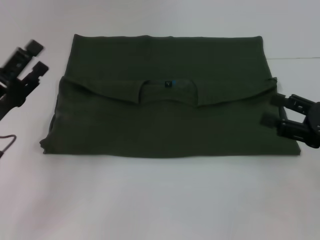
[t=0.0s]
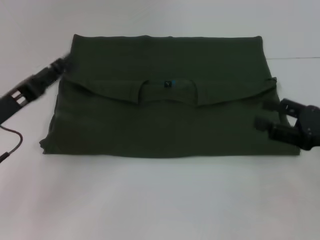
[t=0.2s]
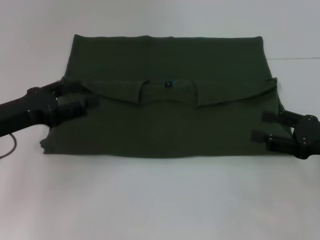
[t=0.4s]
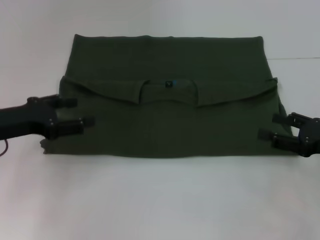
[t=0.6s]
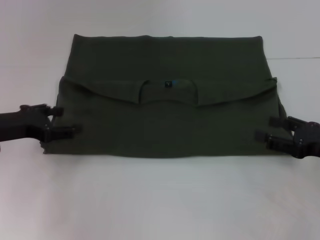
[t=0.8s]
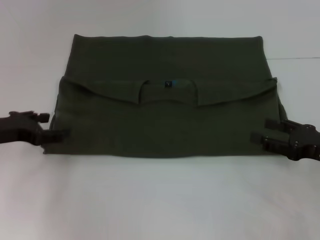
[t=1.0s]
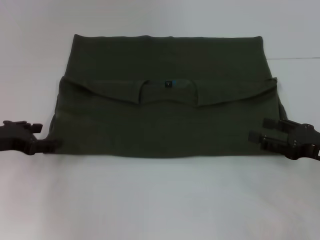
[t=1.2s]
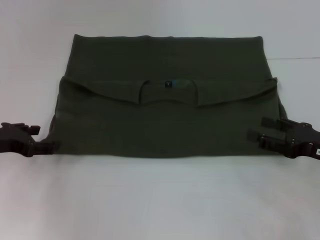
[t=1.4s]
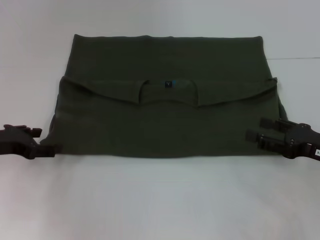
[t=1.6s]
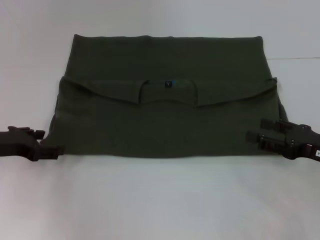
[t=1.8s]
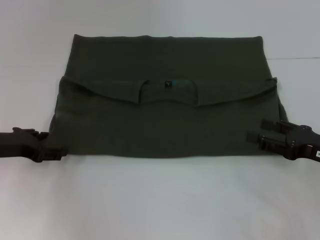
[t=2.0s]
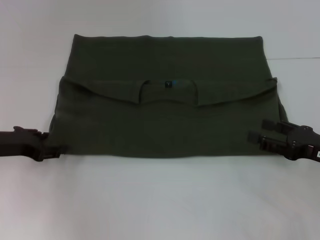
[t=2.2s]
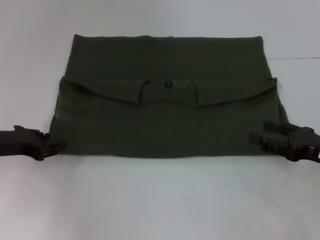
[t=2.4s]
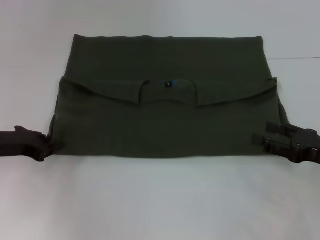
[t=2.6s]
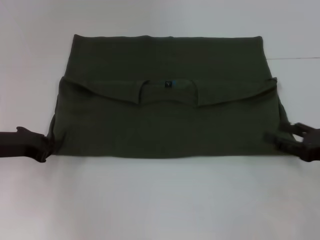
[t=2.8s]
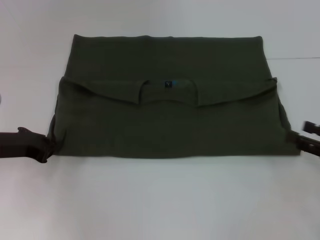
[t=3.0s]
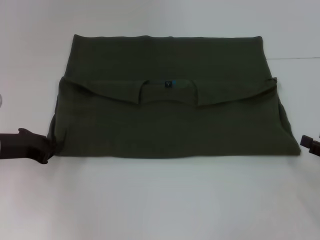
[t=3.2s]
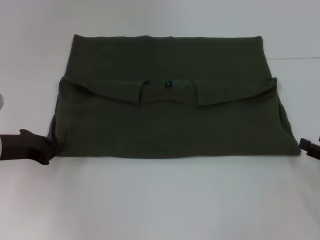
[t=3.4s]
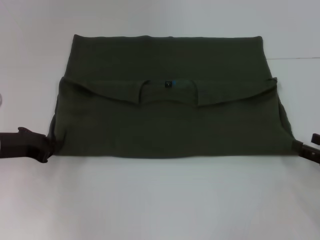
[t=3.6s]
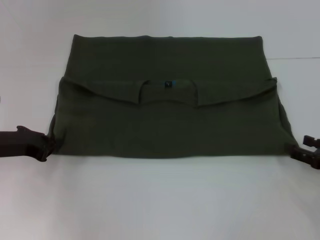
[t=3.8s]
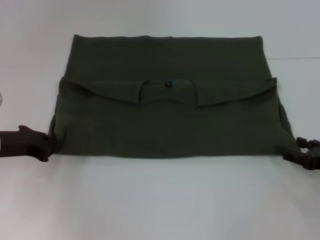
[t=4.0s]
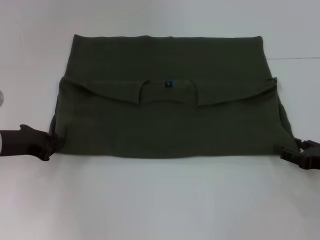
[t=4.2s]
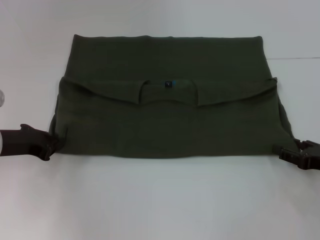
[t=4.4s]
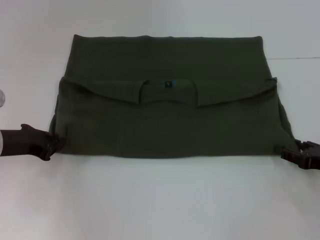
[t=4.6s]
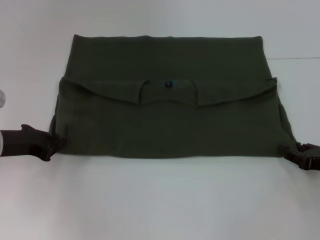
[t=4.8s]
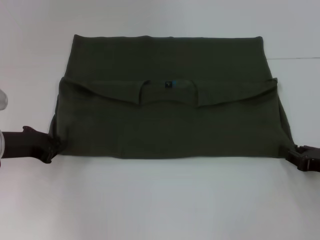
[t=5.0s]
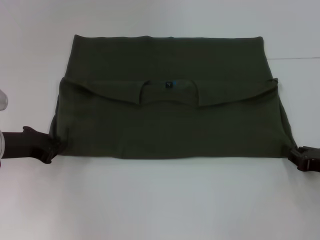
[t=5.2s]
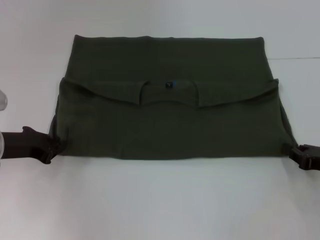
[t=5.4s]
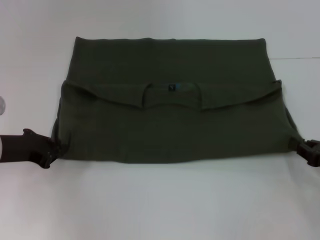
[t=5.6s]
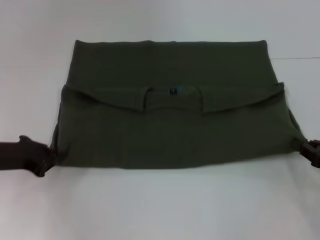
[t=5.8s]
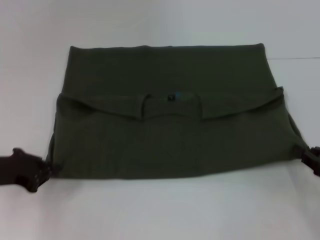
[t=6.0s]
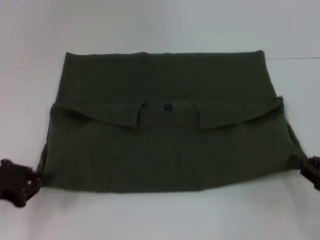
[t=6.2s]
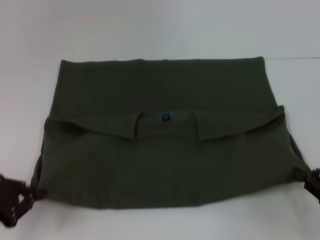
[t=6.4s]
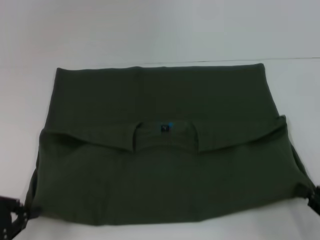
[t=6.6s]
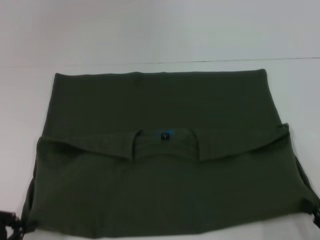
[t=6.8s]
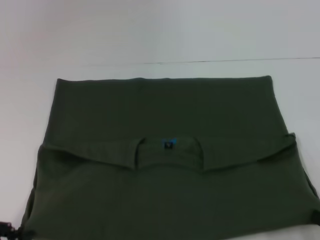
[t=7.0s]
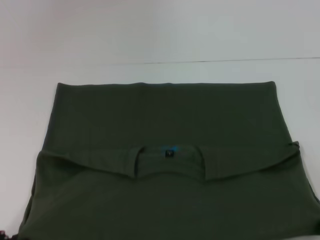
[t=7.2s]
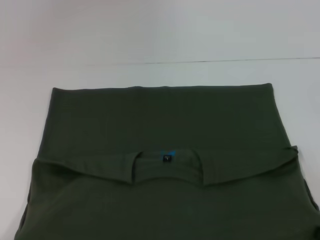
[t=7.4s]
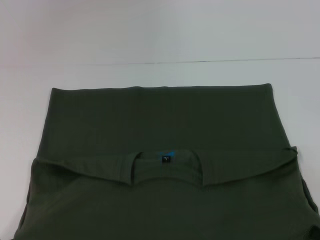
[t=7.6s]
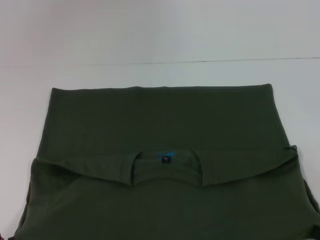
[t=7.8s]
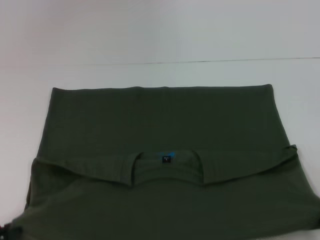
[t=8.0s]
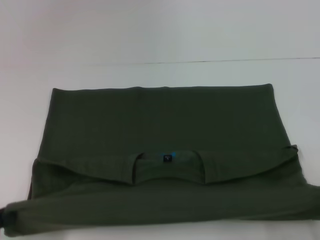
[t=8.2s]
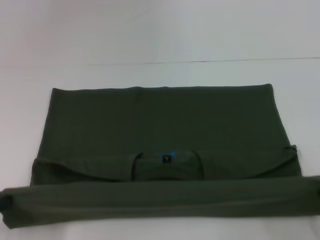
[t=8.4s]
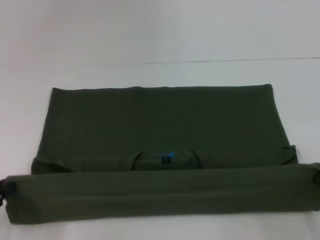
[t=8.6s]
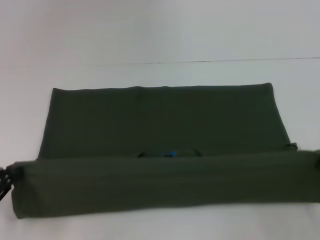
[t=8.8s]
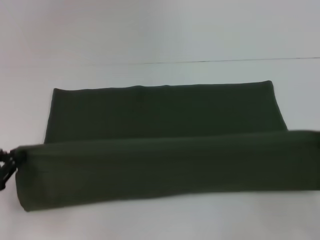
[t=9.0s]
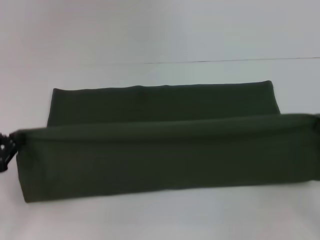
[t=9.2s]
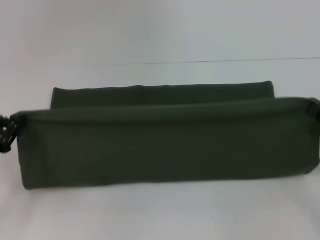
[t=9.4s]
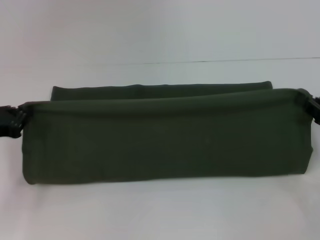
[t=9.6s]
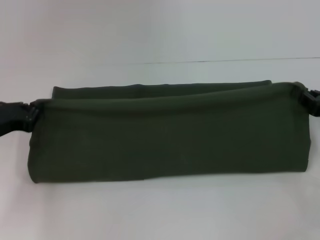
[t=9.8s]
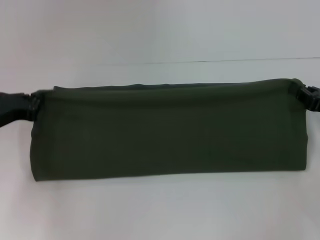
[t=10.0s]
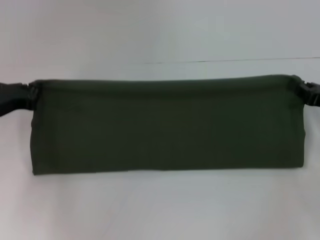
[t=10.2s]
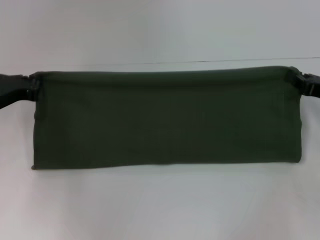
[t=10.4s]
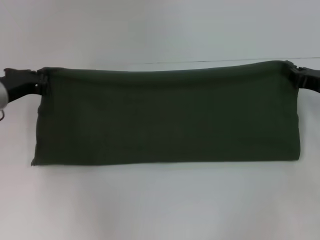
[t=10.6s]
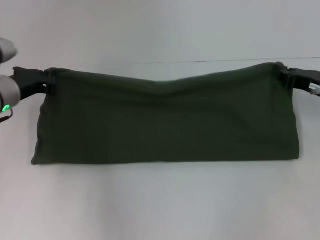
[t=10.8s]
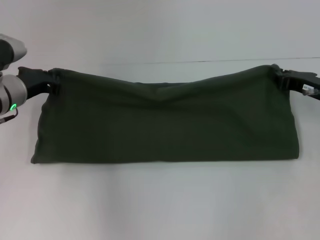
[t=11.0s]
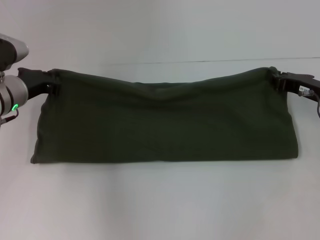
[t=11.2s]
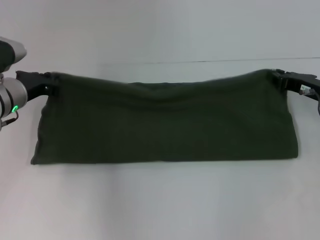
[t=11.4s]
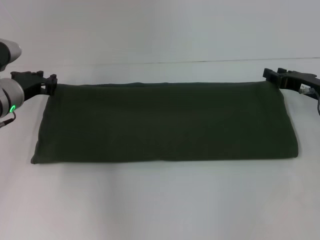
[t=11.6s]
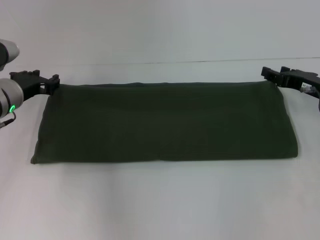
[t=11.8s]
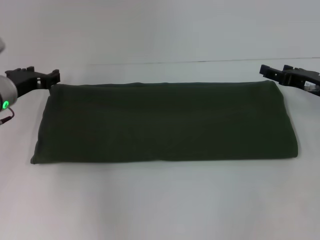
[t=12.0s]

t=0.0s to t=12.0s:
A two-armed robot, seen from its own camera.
Step, t=0.0s to t=7.6s: Pull the clothes with your left hand.
Step, t=0.0s to t=7.6s: Pull the clothes with your right hand.
Step, t=7.8s to t=11.4s: Fold the clothes with your left hand.
Step, t=7.8s to t=11.4s: Fold the clothes with your right hand.
t=0.0s to t=1.6s: The left gripper goes some 5 cm forward.
t=1.6s to t=3.0s: The right gripper ends up some 5 cm from where it was, while the left gripper closes up.
t=3.0s to t=4.4s: The grippers move only a little.
t=4.4s to t=6.0s: The right gripper closes.
t=6.0s to t=7.6s: Both grippers move backward, about 15 cm.
t=7.6s to t=9.0s: The grippers both shift forward by approximately 10 cm.
t=9.0s to t=10.4s: The right gripper moves forward, about 15 cm. Meanwhile the left gripper heads forward and to the right, covering roughly 15 cm.
t=10.4s to t=12.0s: The right gripper opens its fingers, while the left gripper opens its fingers.

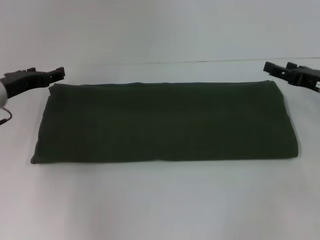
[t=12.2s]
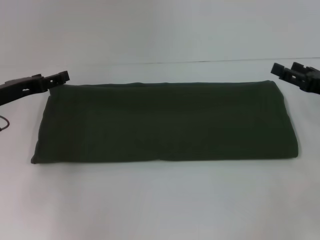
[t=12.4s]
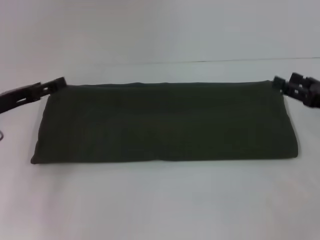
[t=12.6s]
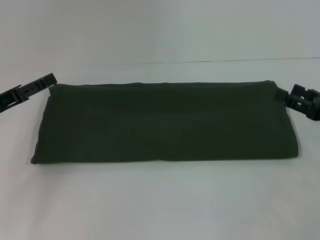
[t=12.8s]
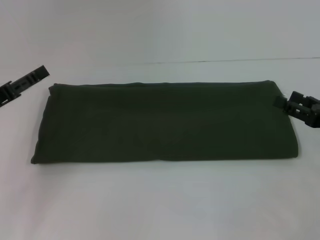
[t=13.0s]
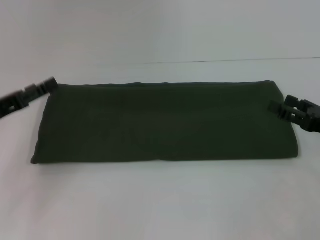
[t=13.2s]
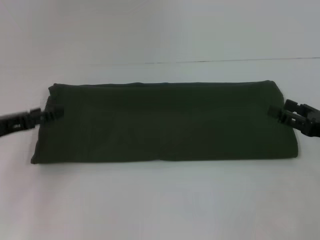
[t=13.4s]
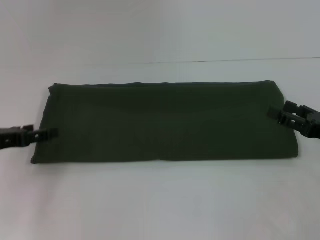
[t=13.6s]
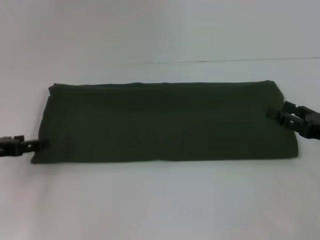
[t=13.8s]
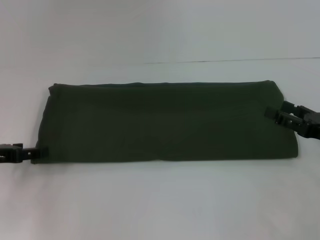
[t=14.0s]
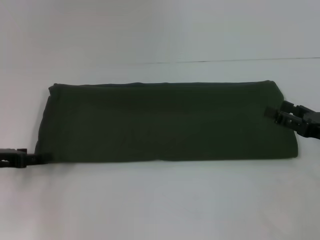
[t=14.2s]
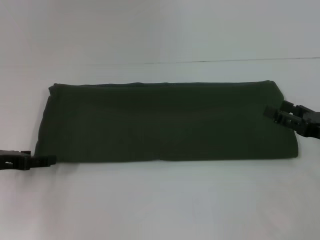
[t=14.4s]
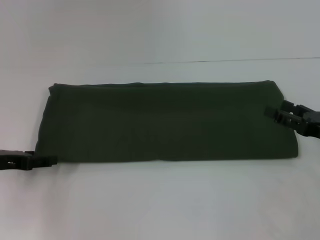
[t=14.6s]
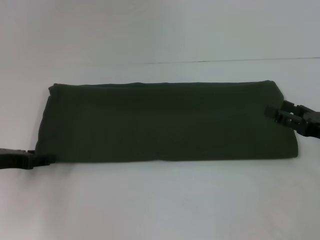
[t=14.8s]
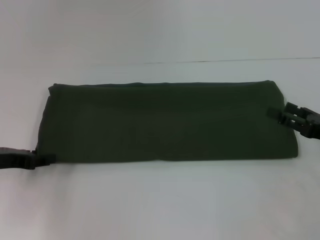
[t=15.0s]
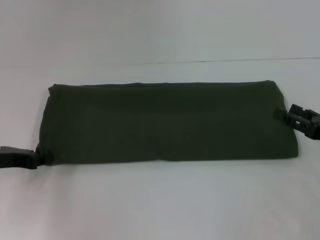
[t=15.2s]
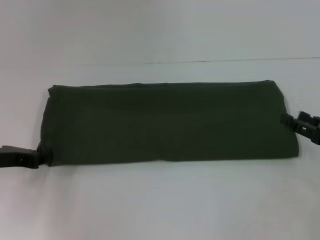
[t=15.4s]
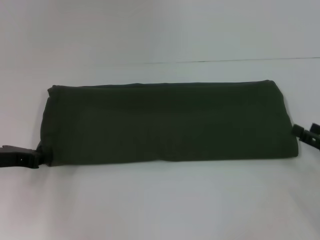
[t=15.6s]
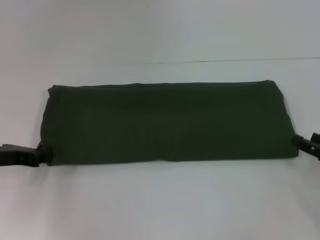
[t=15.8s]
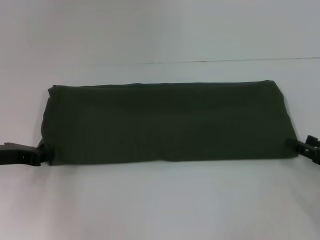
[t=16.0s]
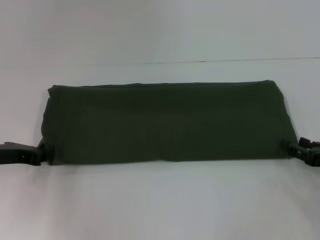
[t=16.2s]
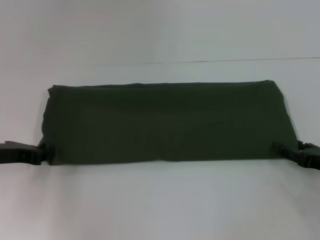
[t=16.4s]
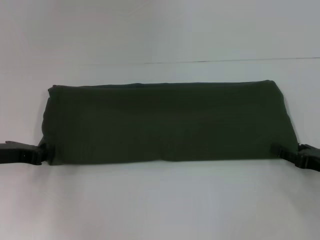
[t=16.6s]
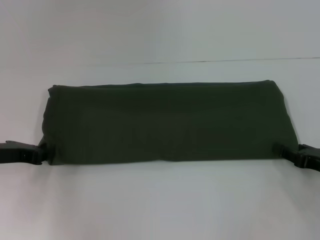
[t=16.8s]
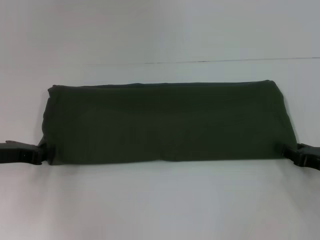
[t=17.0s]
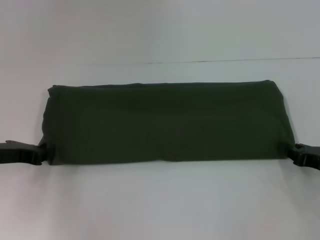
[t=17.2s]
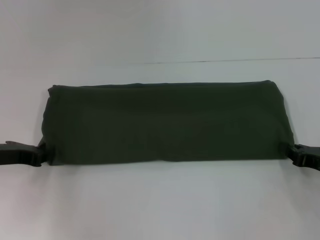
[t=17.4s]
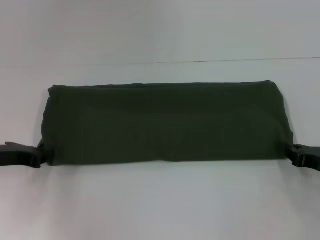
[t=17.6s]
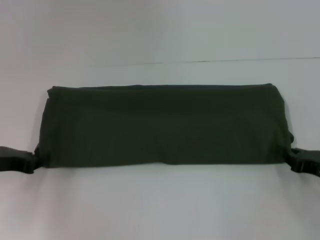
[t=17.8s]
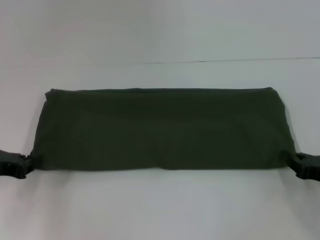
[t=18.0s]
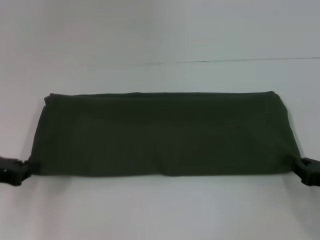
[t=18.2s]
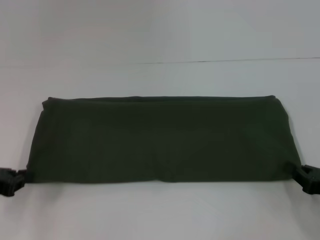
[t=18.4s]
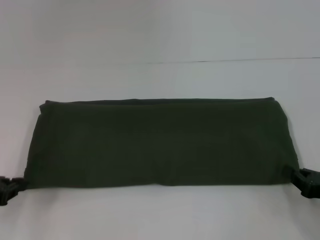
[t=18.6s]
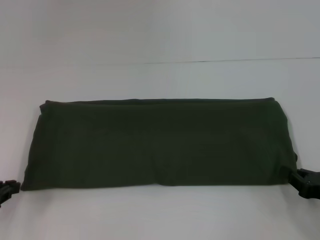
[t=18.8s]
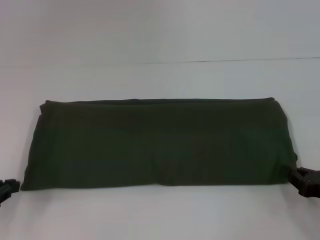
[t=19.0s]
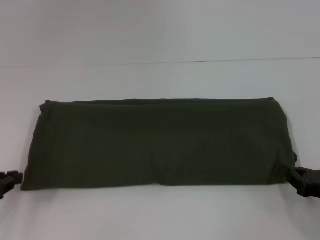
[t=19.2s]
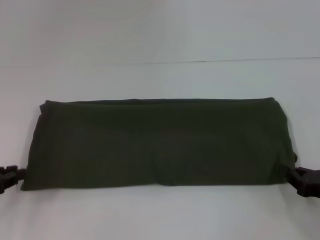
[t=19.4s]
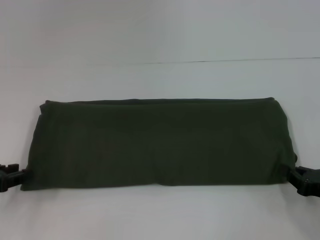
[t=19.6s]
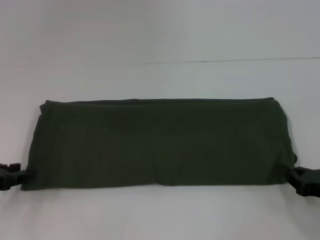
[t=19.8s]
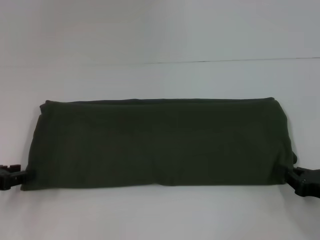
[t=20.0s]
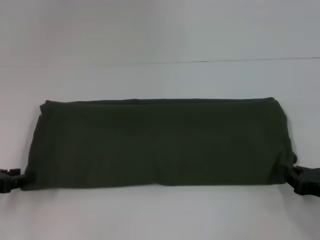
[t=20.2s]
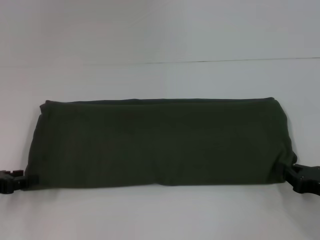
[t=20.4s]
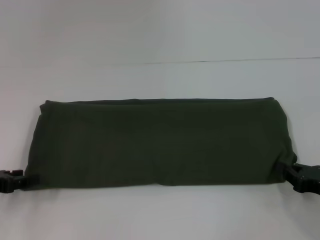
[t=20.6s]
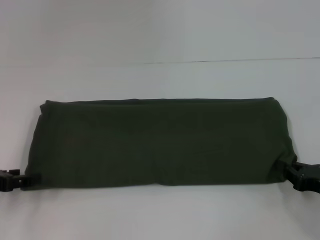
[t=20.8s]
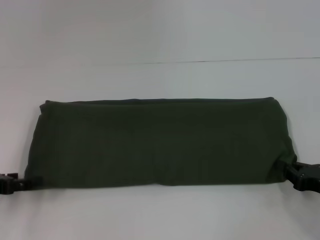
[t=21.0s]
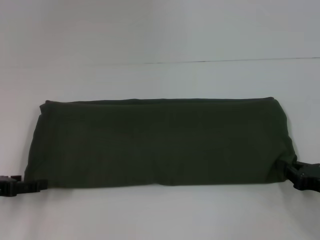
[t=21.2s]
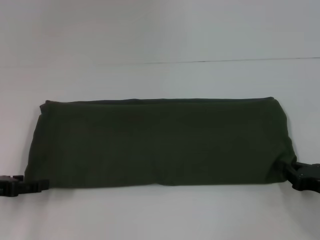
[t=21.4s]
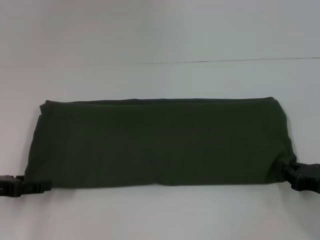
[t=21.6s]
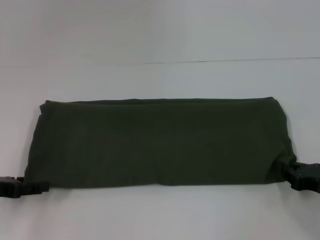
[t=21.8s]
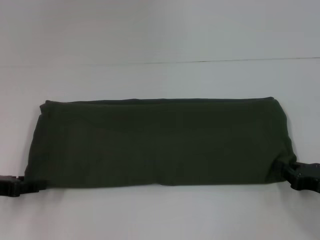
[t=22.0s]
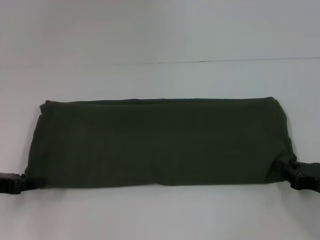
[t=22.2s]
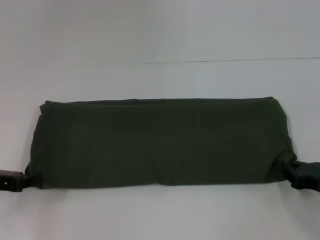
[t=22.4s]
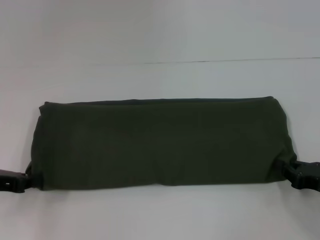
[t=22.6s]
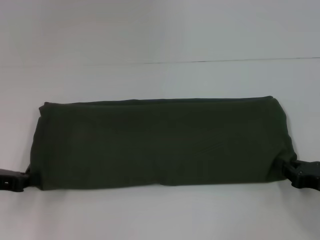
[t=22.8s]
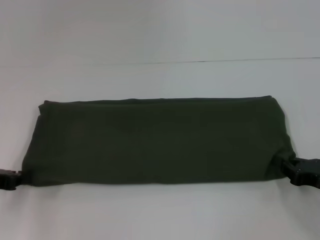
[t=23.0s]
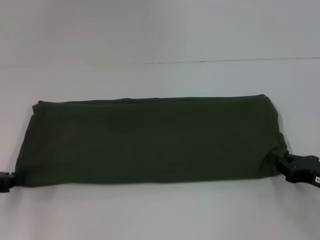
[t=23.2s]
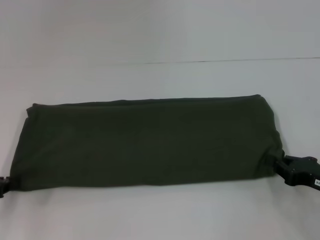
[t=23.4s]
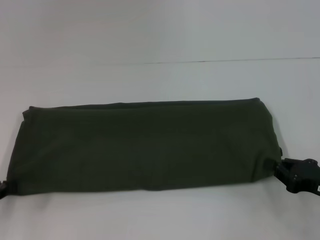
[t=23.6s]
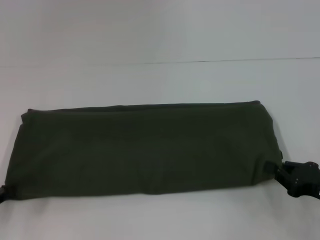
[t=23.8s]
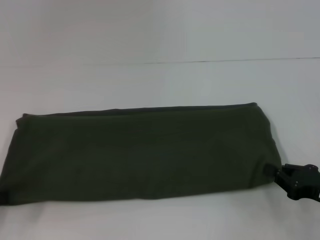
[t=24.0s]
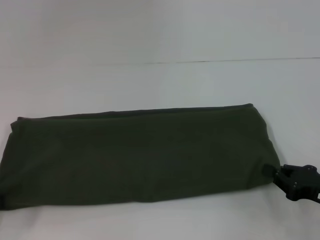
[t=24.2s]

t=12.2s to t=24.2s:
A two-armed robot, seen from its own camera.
t=12.2s to t=13.8s: The left gripper heads backward and to the left, covering approximately 10 cm, while the right gripper travels backward by some 10 cm.
t=13.8s to t=15.2s: The left gripper closes.
t=15.2s to t=16.6s: The left gripper closes.
t=16.6s to t=18.2s: The right gripper closes its fingers.
t=18.2s to t=19.8s: The grippers move only a little.
t=19.8s to t=21.2s: The left gripper opens up.
t=21.2s to t=22.6s: The left gripper closes its fingers.
t=22.6s to t=24.2s: The left gripper heads backward, covering some 5 cm.
